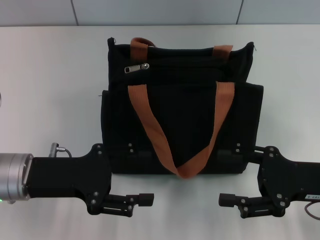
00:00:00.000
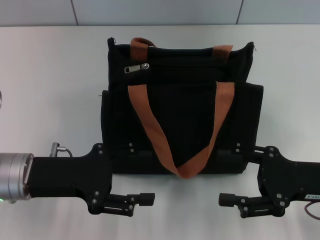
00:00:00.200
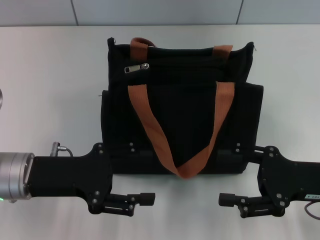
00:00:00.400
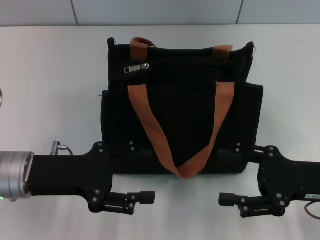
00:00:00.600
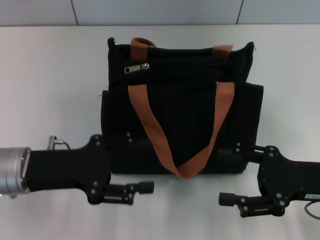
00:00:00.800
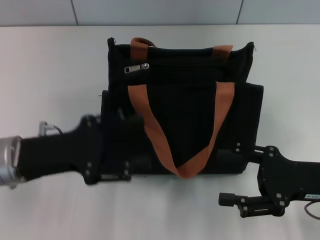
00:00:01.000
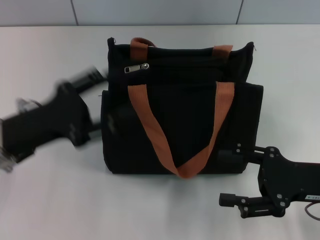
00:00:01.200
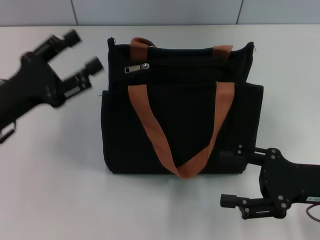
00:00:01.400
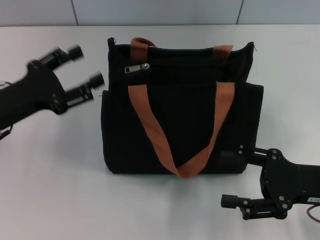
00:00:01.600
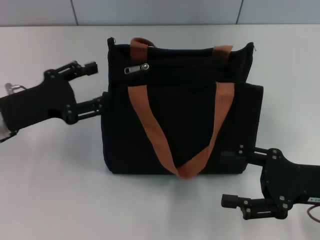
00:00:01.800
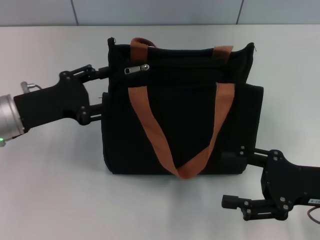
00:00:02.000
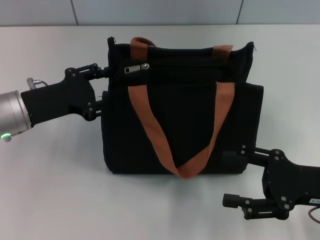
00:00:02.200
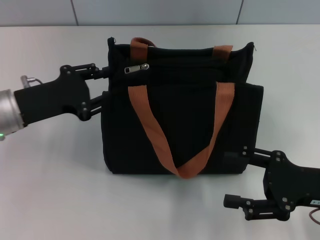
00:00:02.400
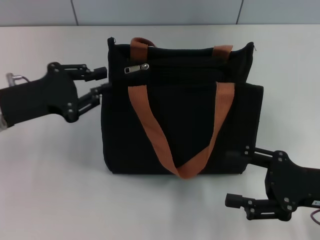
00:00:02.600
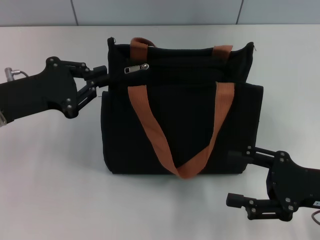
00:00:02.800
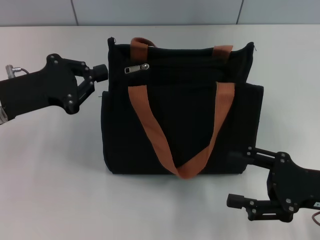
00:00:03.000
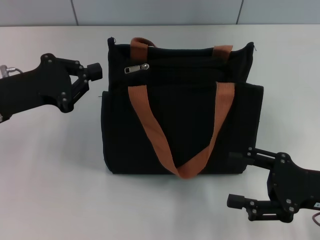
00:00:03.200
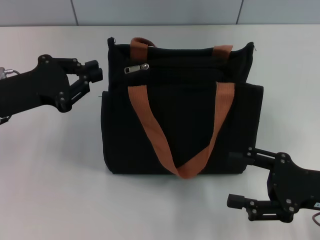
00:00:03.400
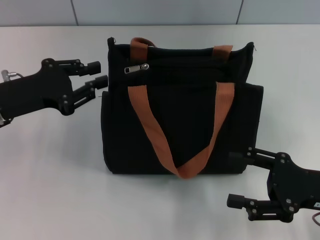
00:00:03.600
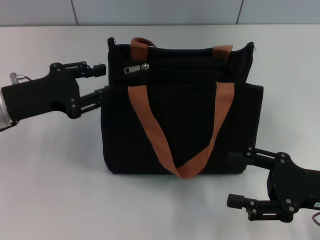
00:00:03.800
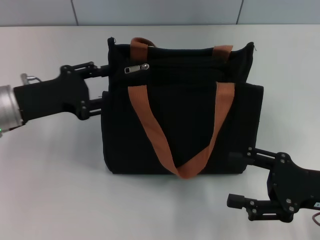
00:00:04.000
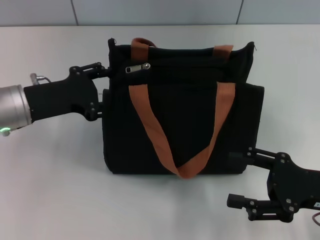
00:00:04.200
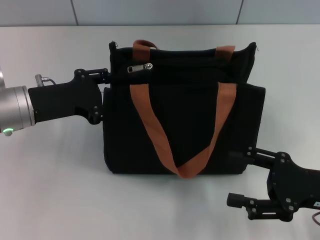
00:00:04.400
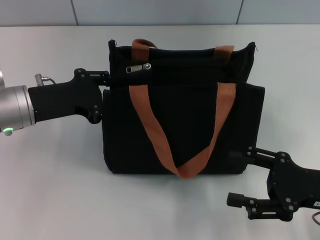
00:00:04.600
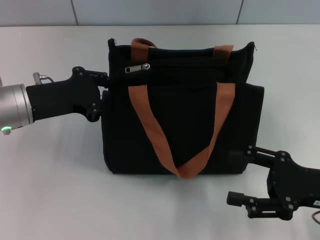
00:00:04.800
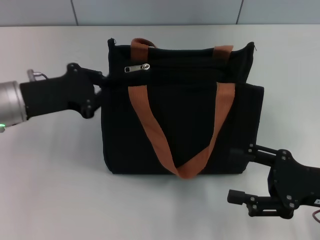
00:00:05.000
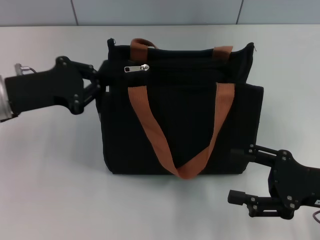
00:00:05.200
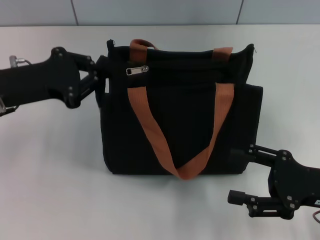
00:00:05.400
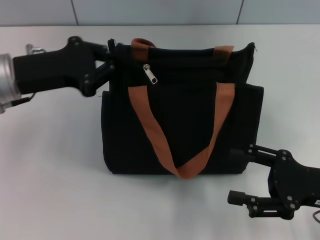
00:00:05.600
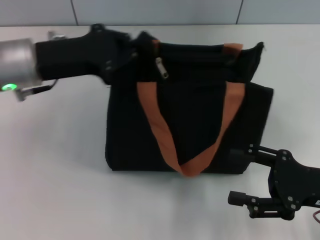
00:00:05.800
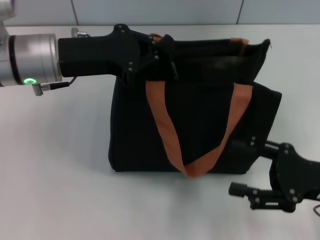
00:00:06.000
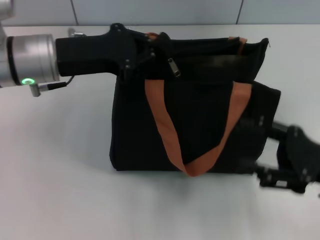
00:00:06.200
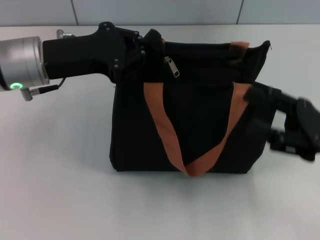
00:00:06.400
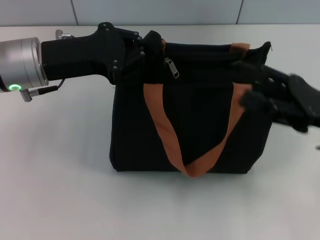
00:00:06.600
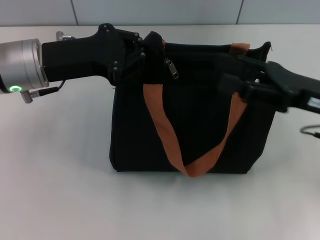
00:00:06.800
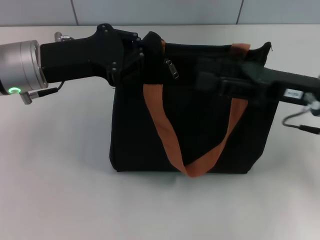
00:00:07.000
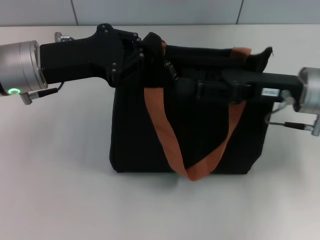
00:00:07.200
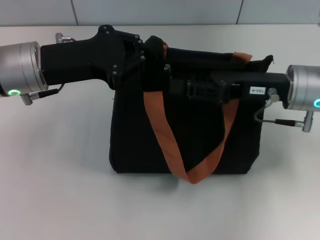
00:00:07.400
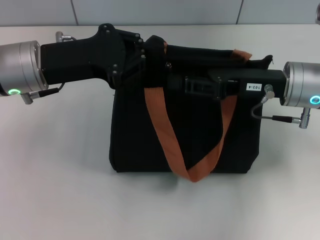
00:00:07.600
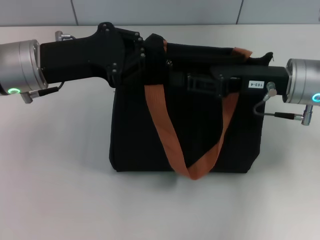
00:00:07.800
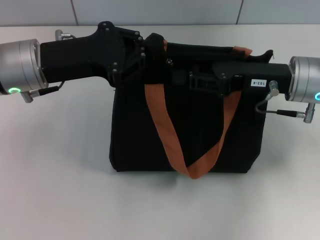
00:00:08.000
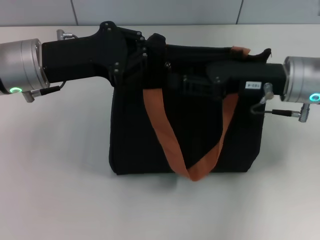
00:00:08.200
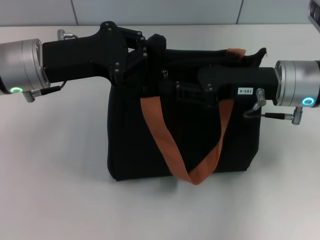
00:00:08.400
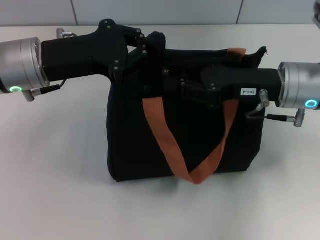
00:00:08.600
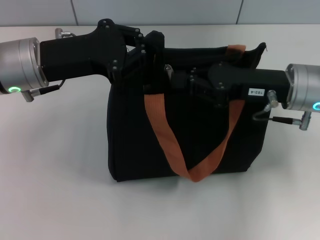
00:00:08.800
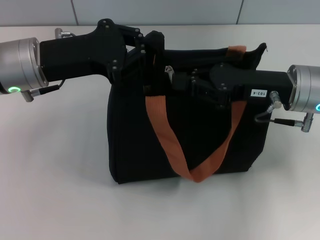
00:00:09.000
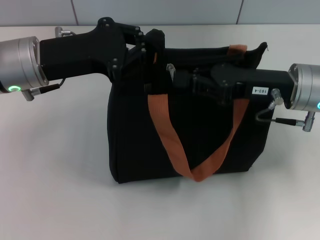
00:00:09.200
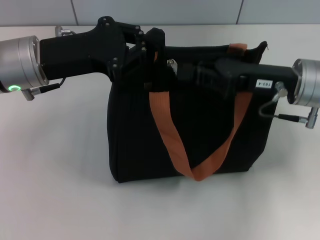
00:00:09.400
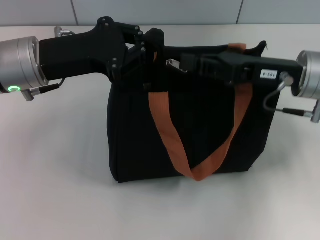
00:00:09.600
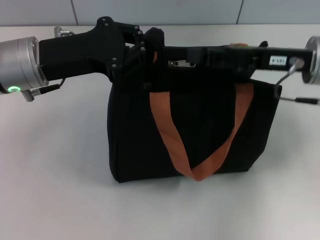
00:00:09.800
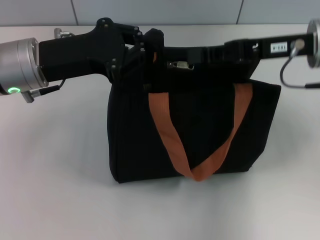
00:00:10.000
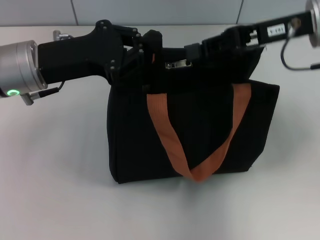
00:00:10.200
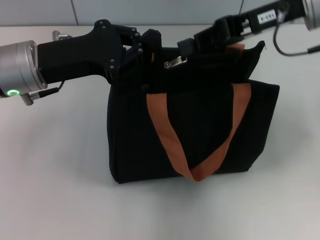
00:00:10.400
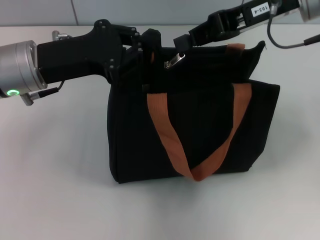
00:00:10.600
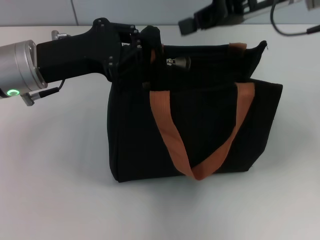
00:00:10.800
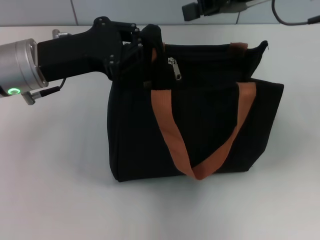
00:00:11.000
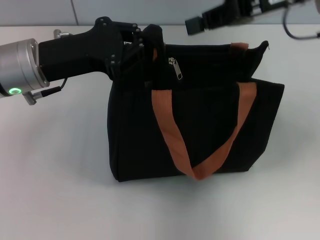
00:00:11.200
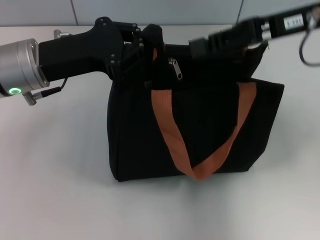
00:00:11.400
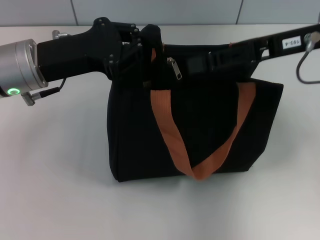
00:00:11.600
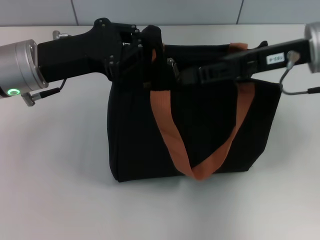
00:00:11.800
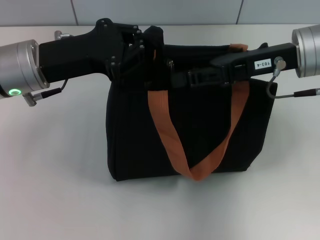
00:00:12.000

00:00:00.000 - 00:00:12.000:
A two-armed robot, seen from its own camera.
00:00:00.000 - 00:00:01.600: The left gripper shifts by approximately 5 cm.
00:00:01.600 - 00:00:03.000: The left gripper closes its fingers.
00:00:03.000 - 00:00:04.400: The left gripper opens its fingers.
00:00:04.400 - 00:00:06.000: The left gripper travels upward and to the right by about 10 cm, and closes.
00:00:06.000 - 00:00:07.600: The right gripper goes roughly 15 cm forward, to the left and upward.
00:00:07.600 - 00:00:09.000: The right gripper closes its fingers.
00:00:09.000 - 00:00:10.400: The right gripper heads upward and forward, covering about 15 cm.
00:00:10.400 - 00:00:12.000: The right gripper heads downward, covering roughly 5 cm, and opens its fingers.

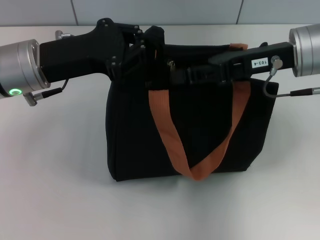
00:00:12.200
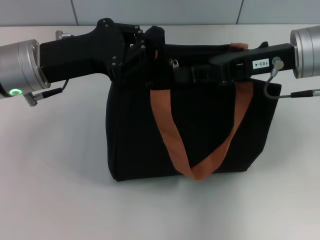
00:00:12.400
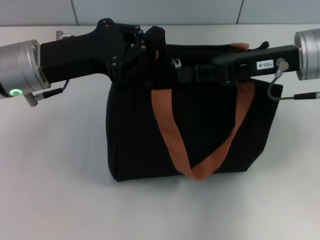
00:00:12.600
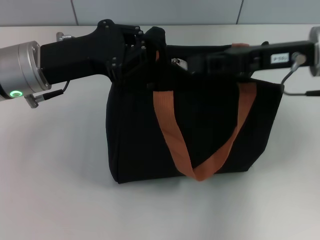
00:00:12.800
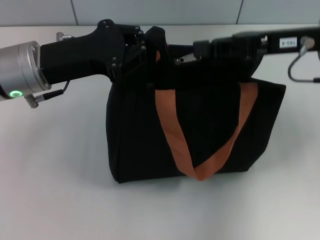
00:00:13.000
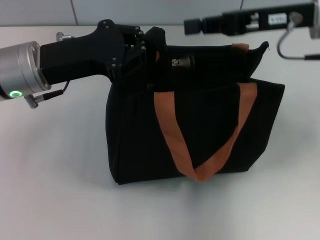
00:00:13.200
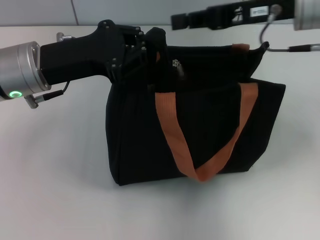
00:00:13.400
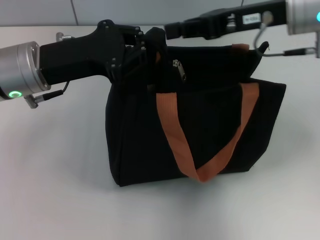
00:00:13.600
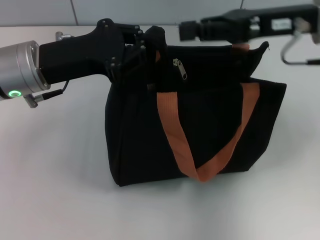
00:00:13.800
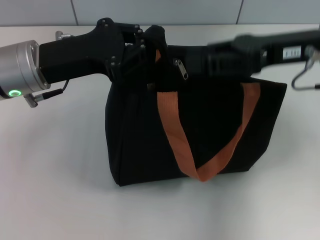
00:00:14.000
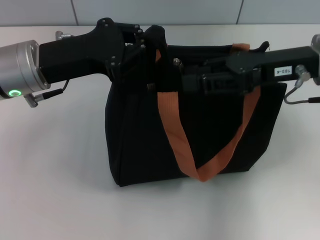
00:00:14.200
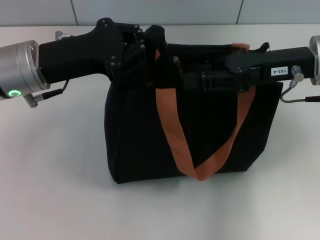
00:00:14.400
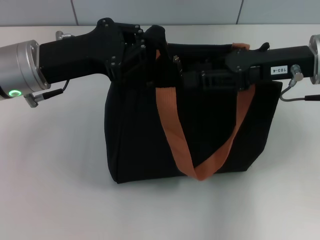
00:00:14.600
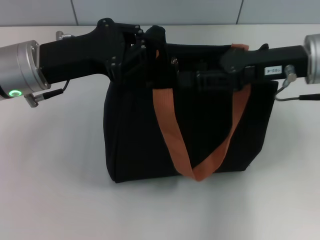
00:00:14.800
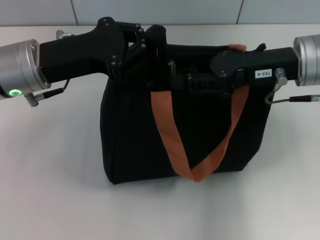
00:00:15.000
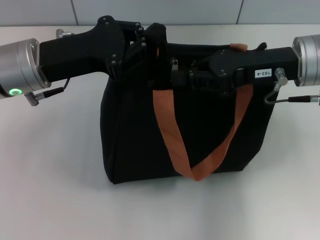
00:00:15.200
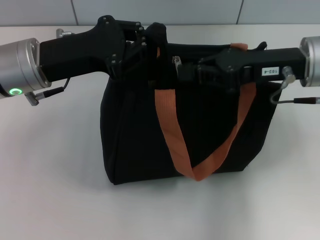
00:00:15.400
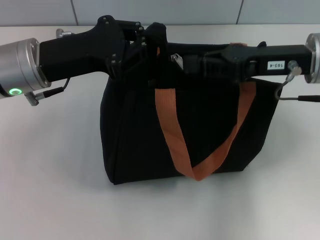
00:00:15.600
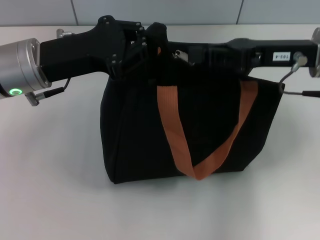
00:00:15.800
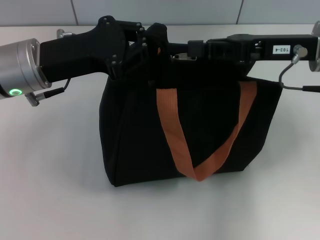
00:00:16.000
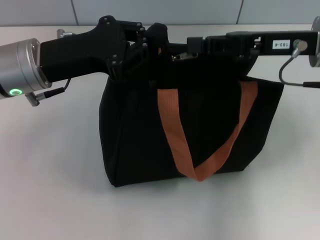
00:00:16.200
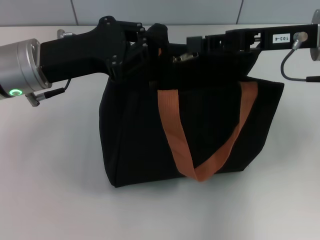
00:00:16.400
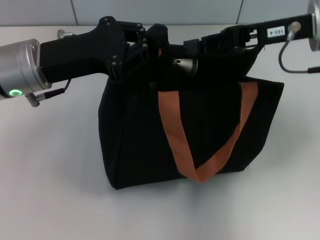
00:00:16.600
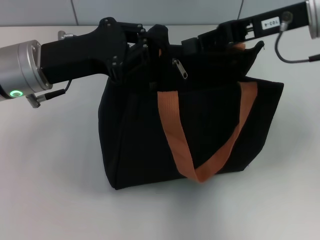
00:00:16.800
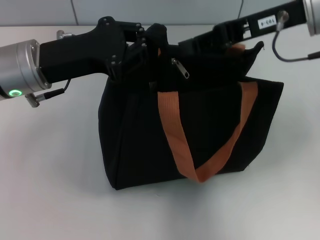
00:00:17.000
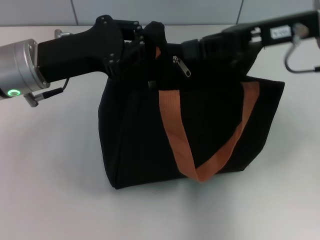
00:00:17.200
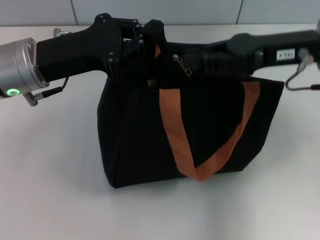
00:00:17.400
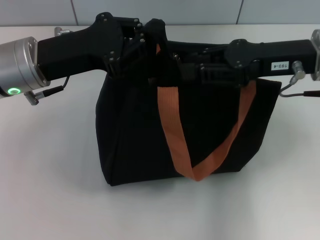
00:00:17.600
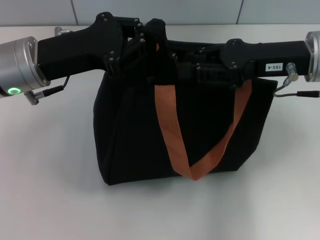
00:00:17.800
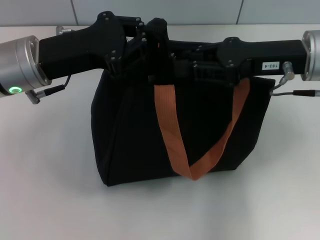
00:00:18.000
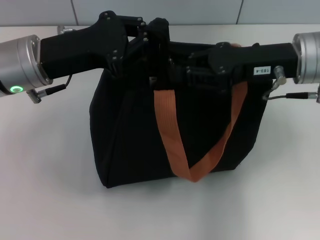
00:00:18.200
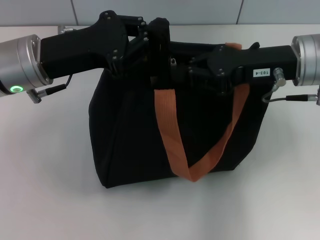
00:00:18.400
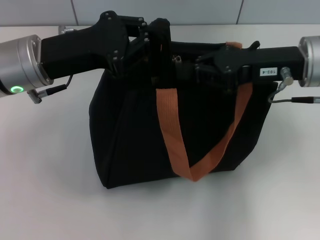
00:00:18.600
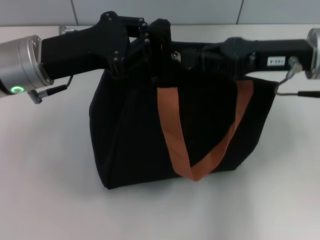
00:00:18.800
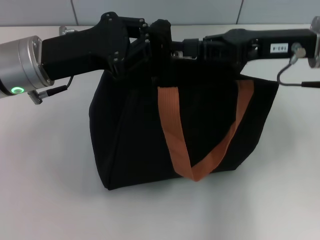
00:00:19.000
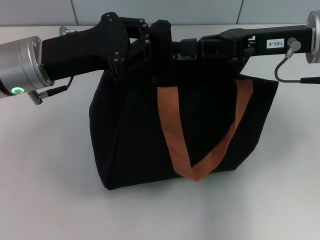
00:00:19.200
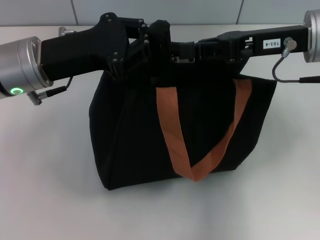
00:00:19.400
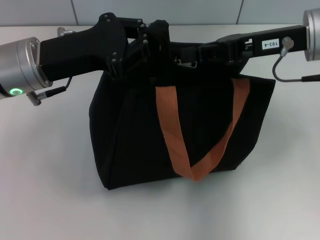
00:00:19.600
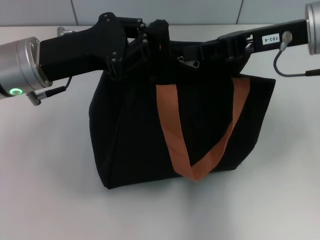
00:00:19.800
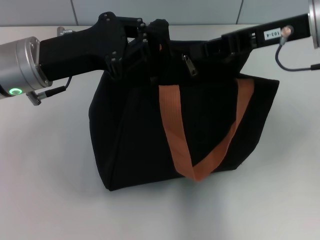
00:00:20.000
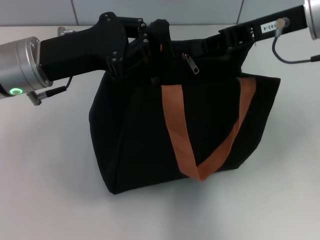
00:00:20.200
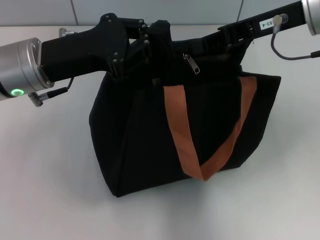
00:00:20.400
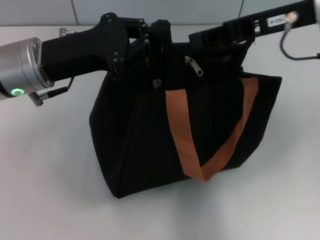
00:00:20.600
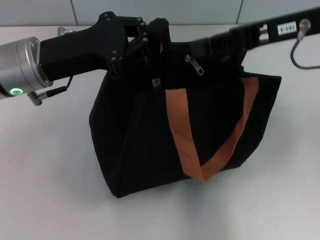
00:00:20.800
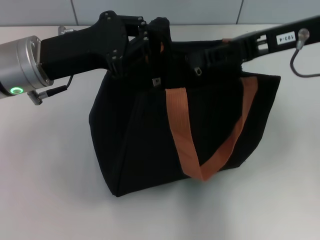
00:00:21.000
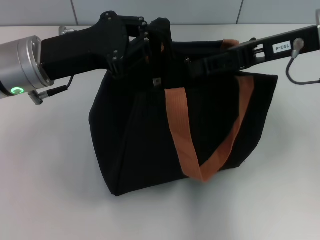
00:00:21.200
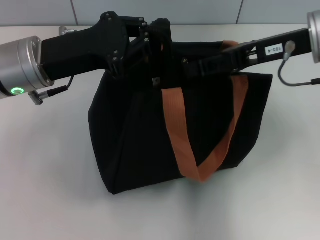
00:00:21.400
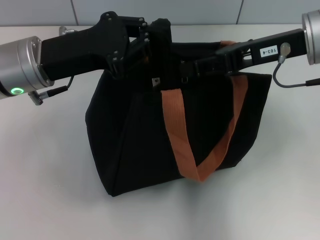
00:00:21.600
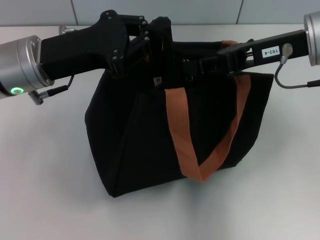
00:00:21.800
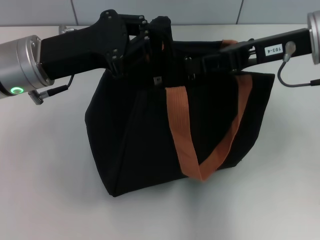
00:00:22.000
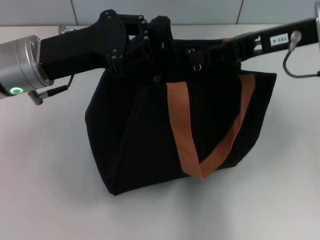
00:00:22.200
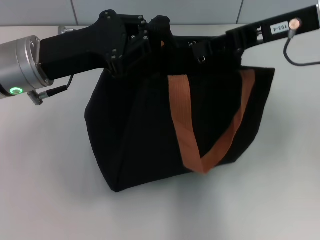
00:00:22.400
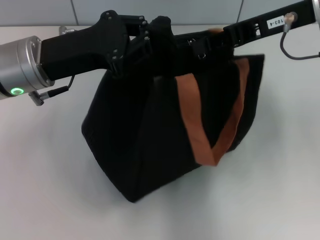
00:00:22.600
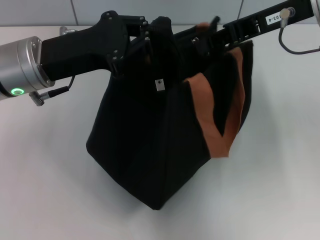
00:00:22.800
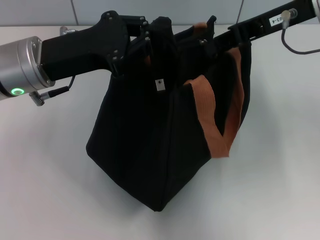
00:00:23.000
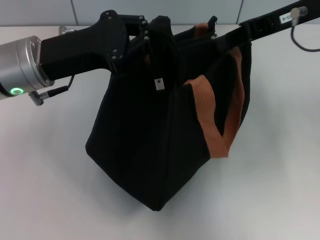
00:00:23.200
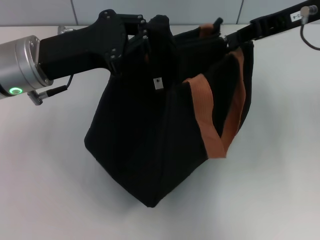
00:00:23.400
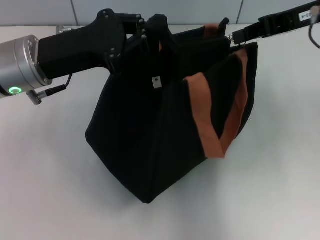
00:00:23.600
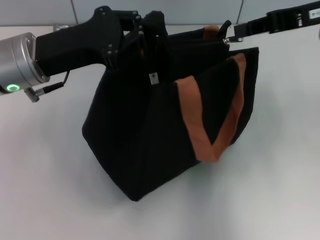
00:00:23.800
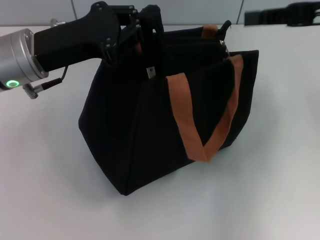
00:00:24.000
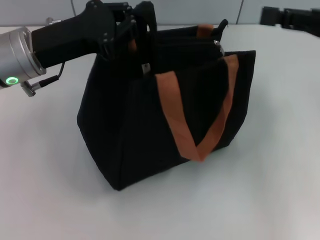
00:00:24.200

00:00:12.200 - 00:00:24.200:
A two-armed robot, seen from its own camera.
Step, 00:00:12.200 - 00:00:24.000: Pull up the zipper with your right hand.
00:00:12.200 - 00:00:13.800: The grippers stay close to where they were, moving slightly.
00:00:13.800 - 00:00:15.200: The right gripper opens, then closes again.
00:00:15.200 - 00:00:16.600: The grippers move only a little.
00:00:16.600 - 00:00:18.200: The right gripper opens.
00:00:18.200 - 00:00:19.800: The right gripper closes its fingers.
00:00:19.800 - 00:00:22.600: The grippers move only a little.
00:00:22.600 - 00:00:24.200: The right gripper shifts roughly 10 cm to the right.
